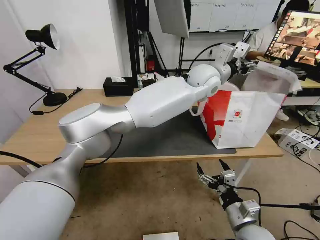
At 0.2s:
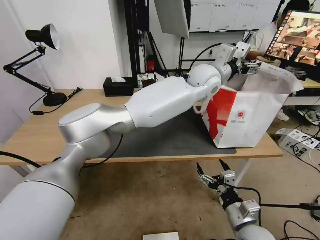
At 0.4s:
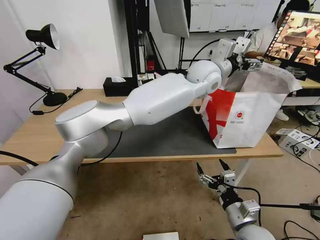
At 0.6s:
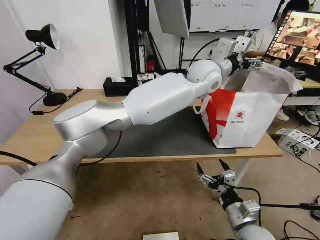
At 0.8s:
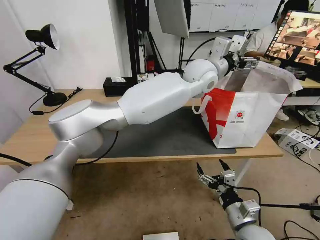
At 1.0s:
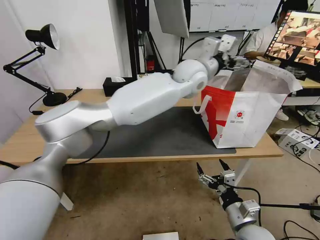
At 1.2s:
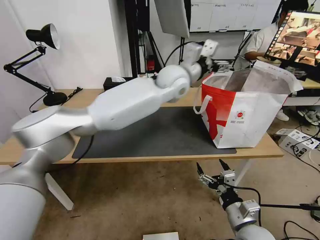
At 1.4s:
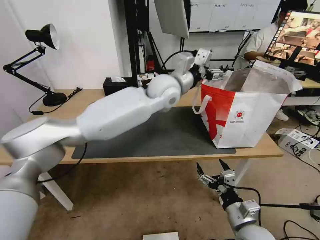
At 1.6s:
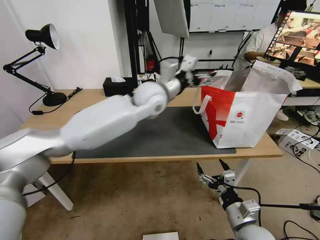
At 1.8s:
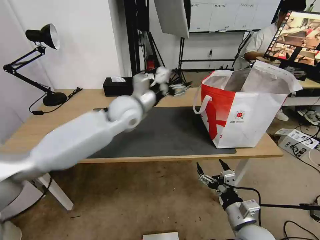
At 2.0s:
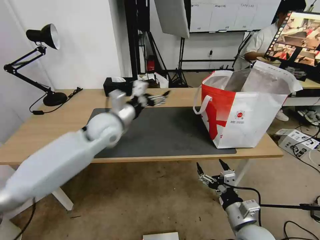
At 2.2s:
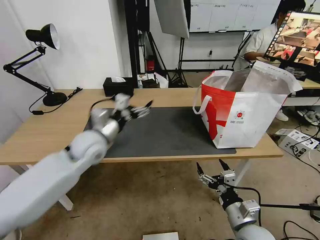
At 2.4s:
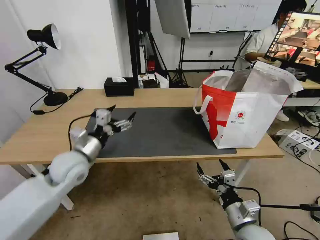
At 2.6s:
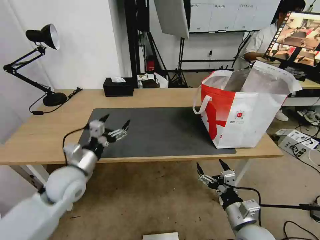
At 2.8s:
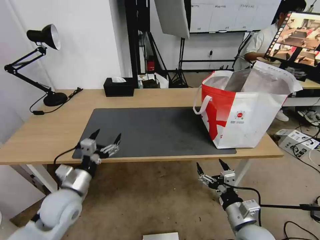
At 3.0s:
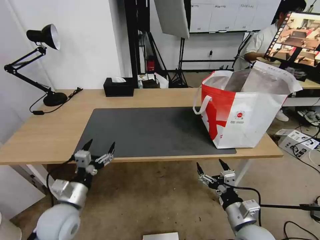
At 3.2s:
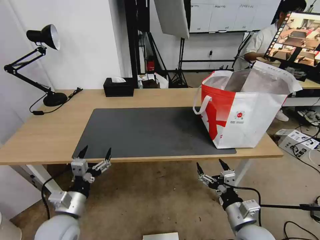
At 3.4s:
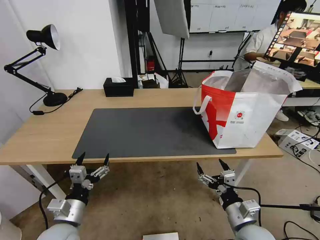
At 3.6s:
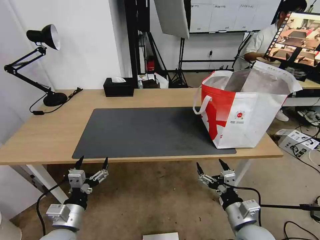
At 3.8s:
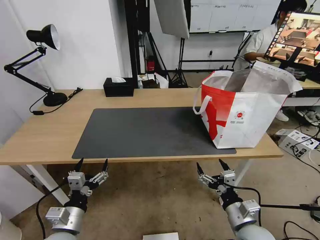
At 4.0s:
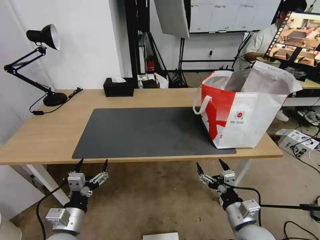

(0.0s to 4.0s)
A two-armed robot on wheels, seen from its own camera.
Task of the whole recording: Pick up the trash from the table and place it into the takeout bag.
0.0s - 1.4s: The left gripper goes about 10 cm to the left, and opens.
1.4s - 2.6s: The left gripper shifts approximately 40 cm to the left, backward and downward.
2.6s - 4.0s: The left gripper moves backward and downward, approximately 15 cm.

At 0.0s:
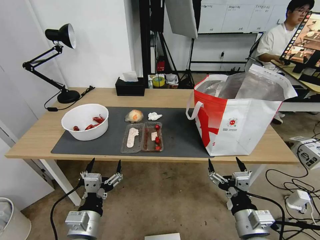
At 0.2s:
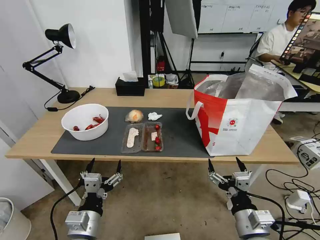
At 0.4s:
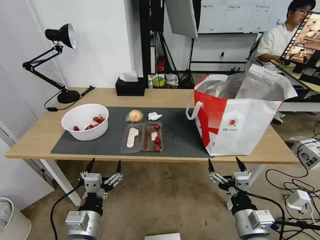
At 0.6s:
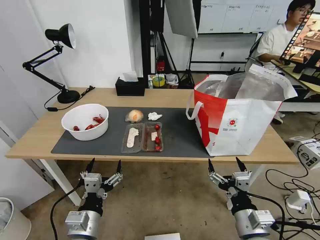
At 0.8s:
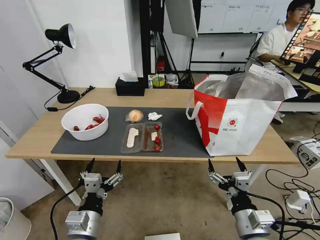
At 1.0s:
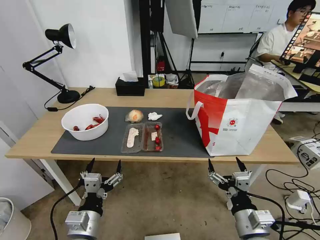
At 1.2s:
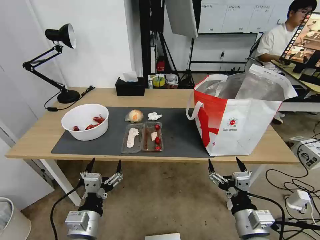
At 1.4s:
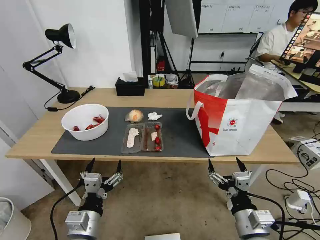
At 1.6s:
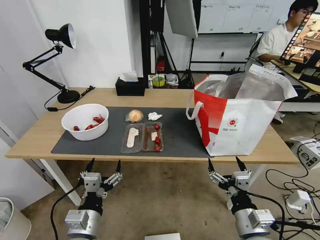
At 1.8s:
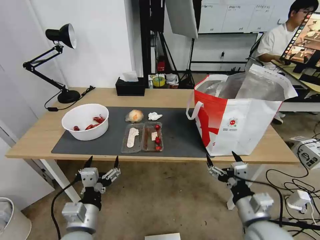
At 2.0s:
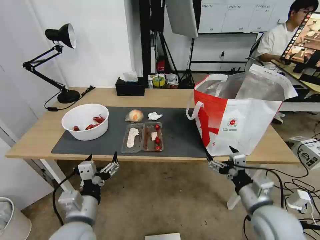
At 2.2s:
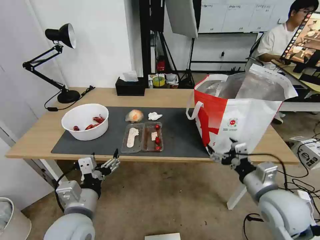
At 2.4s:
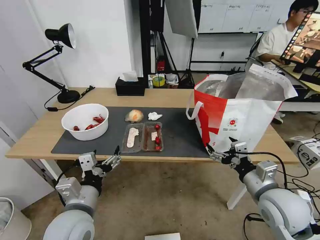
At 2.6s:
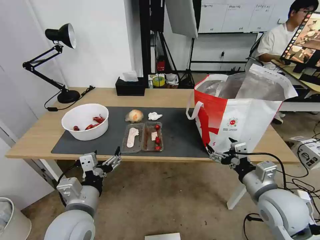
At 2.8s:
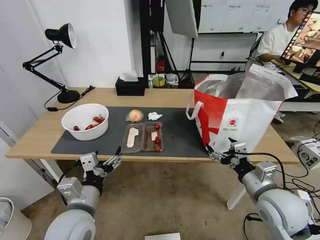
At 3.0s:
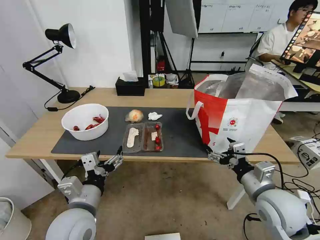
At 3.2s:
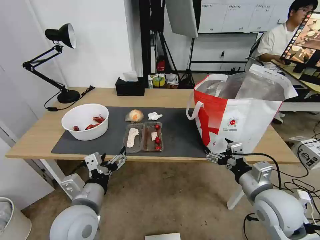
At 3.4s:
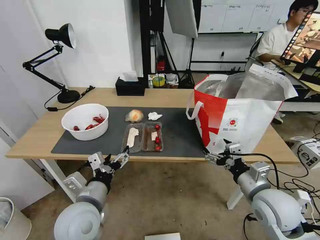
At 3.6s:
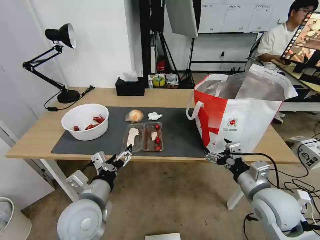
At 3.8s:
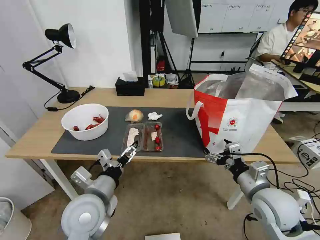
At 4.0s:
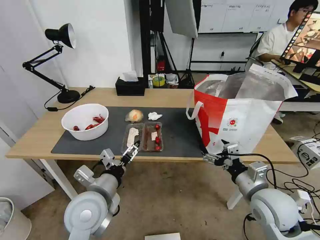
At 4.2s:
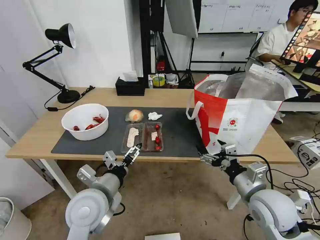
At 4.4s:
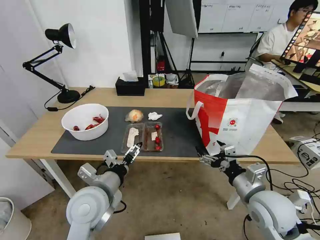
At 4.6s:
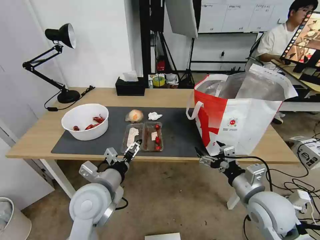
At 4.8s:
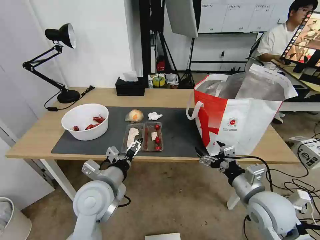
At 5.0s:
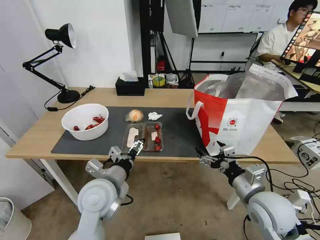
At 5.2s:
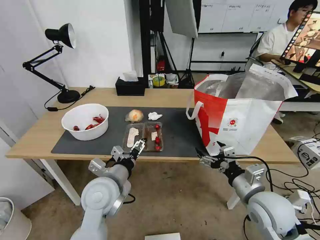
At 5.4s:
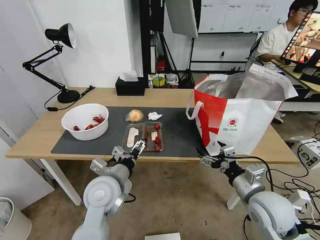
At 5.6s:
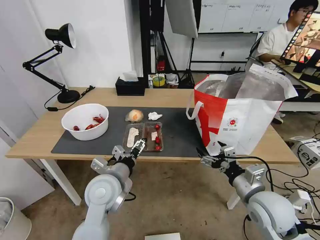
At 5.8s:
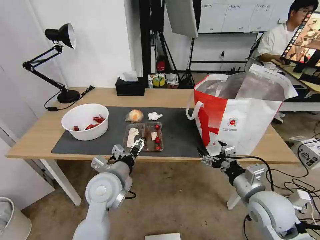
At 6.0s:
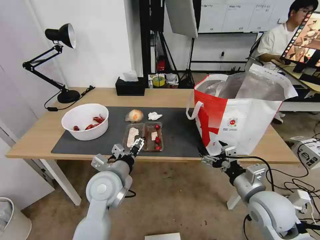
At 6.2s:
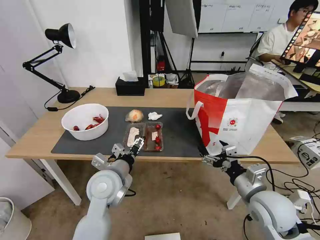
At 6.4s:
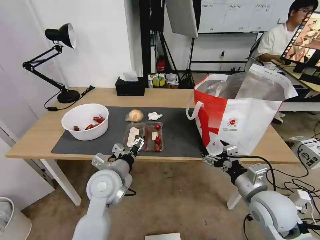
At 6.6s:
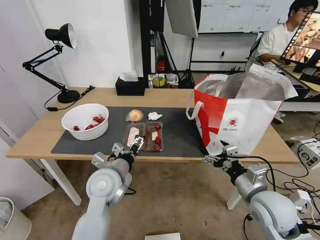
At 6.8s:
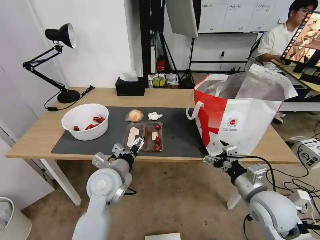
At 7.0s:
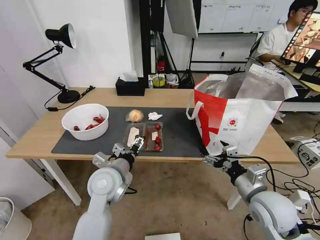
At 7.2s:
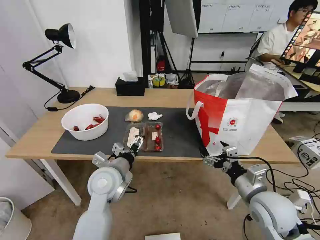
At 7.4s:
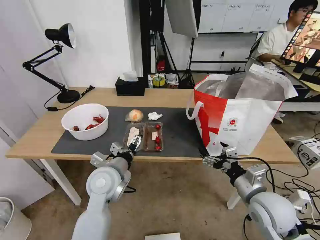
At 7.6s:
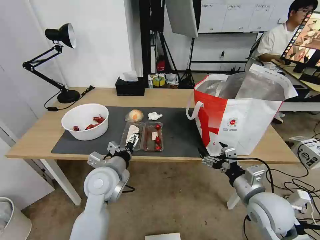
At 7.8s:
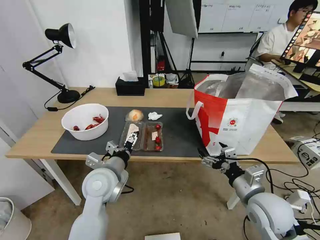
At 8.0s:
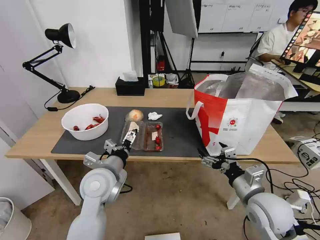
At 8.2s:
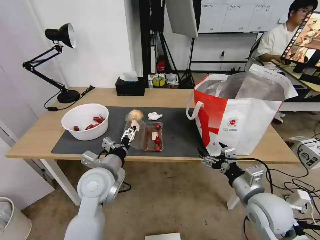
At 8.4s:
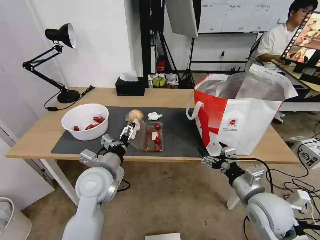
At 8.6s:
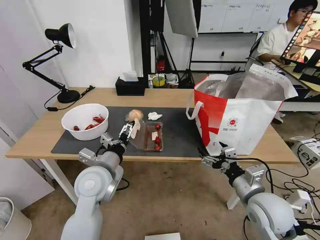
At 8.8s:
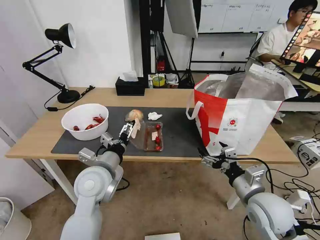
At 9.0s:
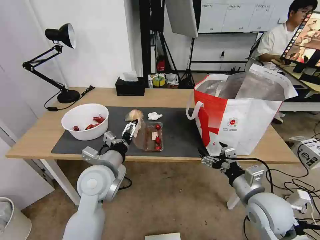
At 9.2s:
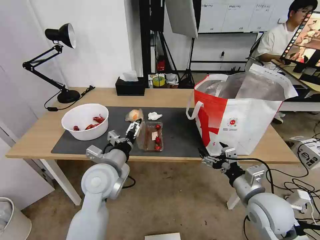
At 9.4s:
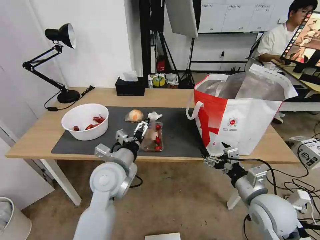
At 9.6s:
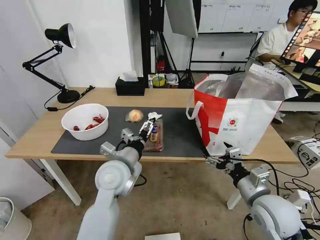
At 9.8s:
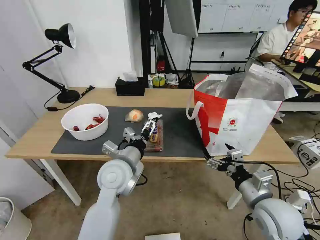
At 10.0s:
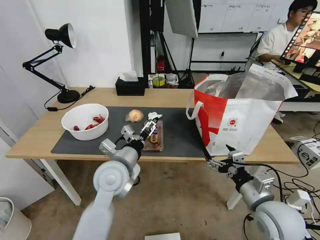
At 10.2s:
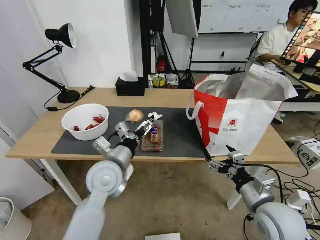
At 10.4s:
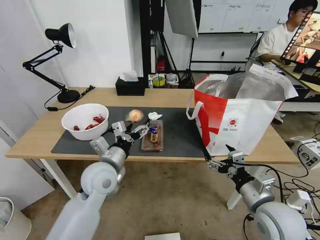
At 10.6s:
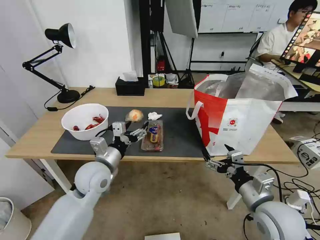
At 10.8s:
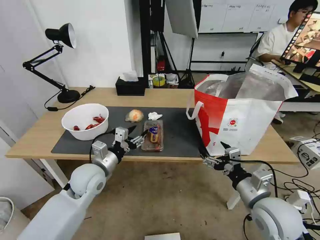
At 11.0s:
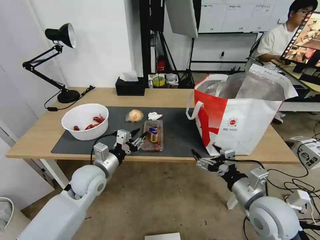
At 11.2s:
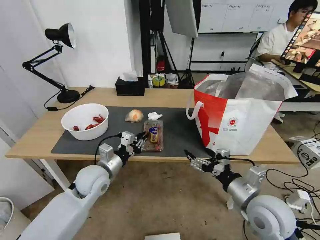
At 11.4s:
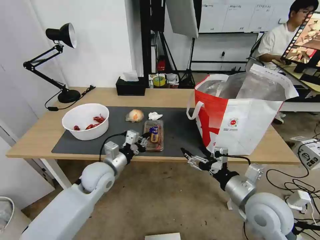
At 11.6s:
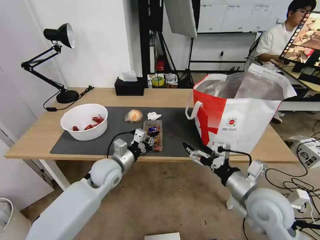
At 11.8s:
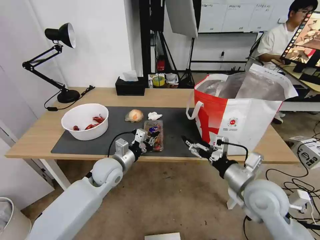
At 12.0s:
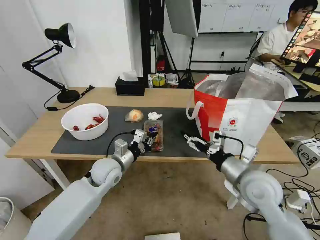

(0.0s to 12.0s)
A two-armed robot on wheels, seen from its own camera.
Task of the whole recording: Pick up the trash from the table and place it into the takeout bag.
1.6s - 3.0s: The right gripper moves forward, upward and to the right, about 10 cm. Meanwhile the left gripper shifts some 5 cm upward.
3.0s - 4.4s: The left gripper goes approximately 5 cm forward.
4.4s - 6.0s: The left gripper shifts some 5 cm forward.
6.0s - 9.0s: The grippers stay close to where they were, moving slightly.
10.4s - 12.0s: The right gripper moves forward, approximately 5 cm. Meanwhile the left gripper moves downward and forward, some 10 cm, and closes up.

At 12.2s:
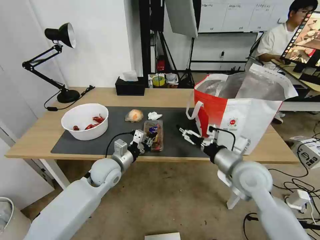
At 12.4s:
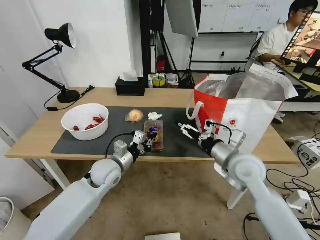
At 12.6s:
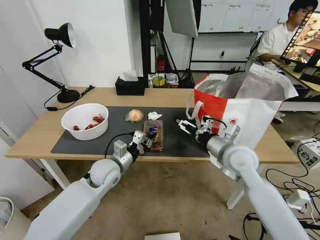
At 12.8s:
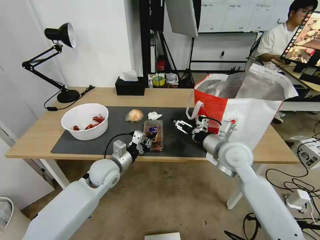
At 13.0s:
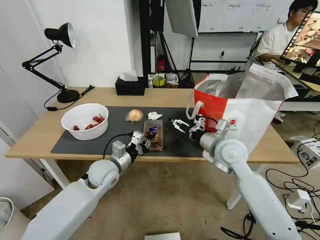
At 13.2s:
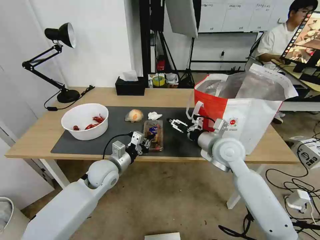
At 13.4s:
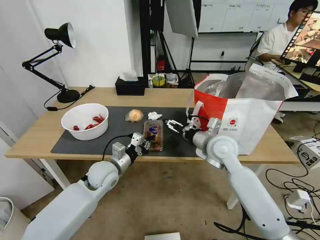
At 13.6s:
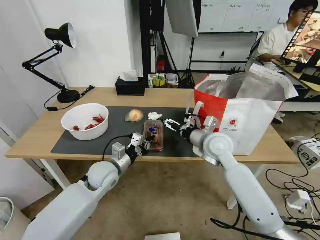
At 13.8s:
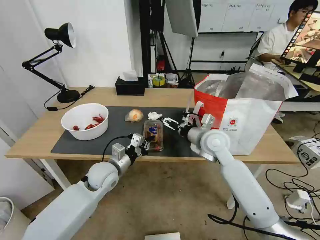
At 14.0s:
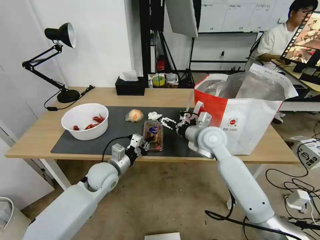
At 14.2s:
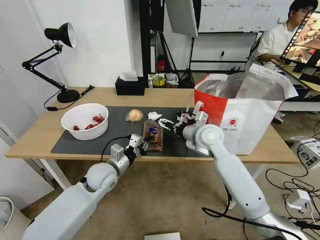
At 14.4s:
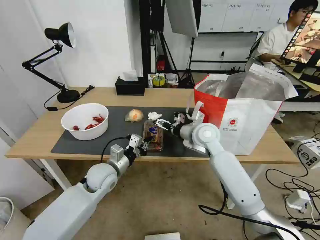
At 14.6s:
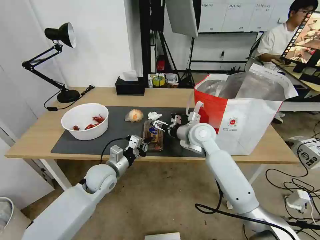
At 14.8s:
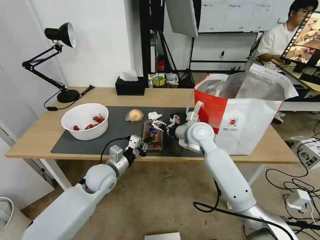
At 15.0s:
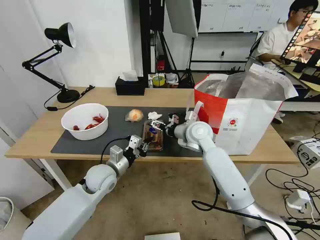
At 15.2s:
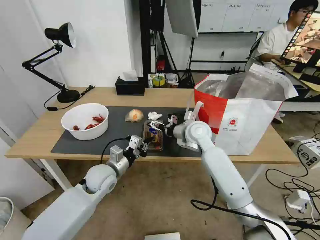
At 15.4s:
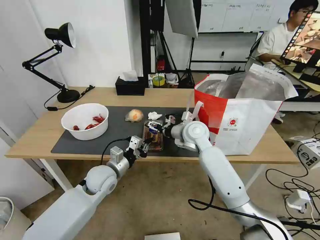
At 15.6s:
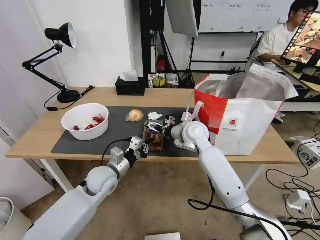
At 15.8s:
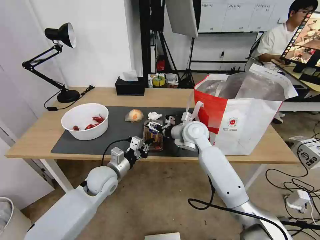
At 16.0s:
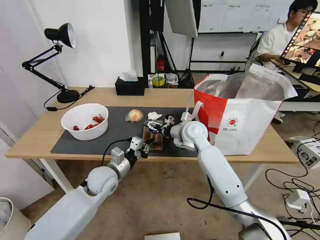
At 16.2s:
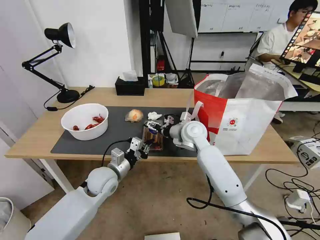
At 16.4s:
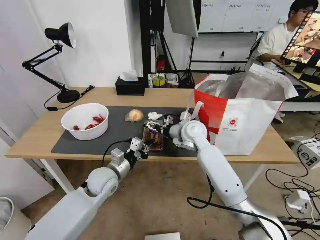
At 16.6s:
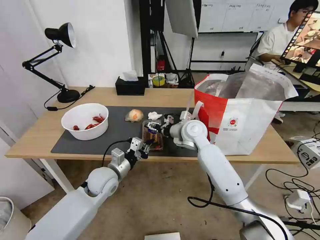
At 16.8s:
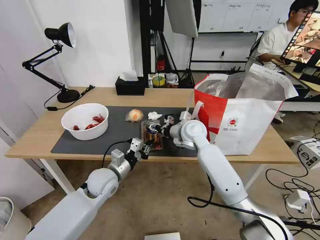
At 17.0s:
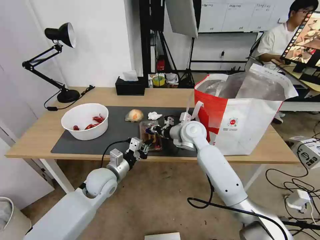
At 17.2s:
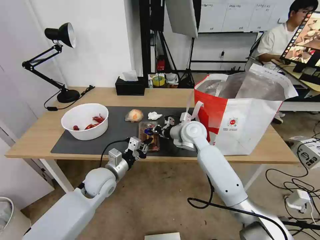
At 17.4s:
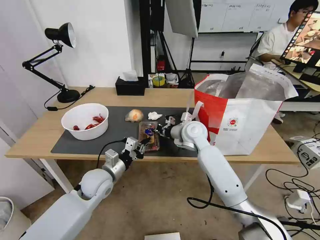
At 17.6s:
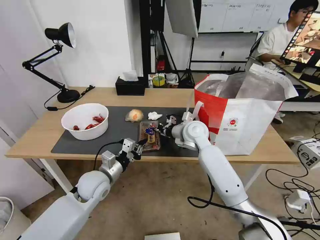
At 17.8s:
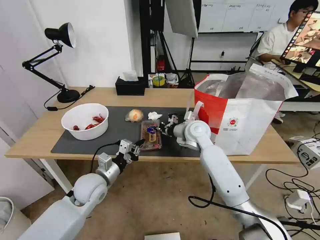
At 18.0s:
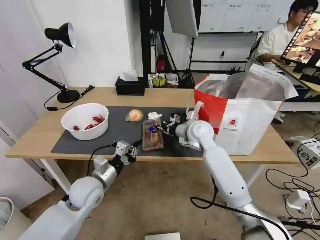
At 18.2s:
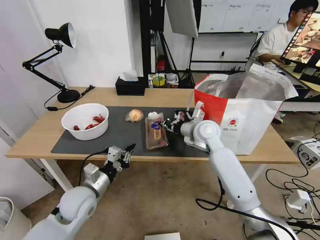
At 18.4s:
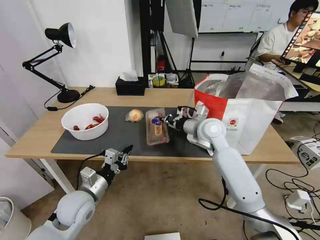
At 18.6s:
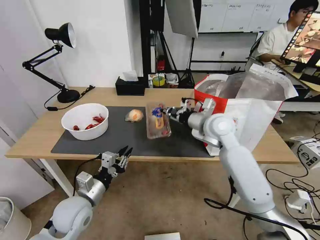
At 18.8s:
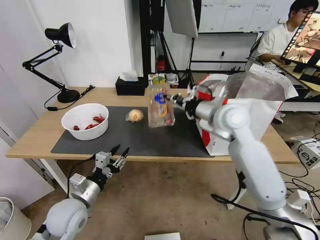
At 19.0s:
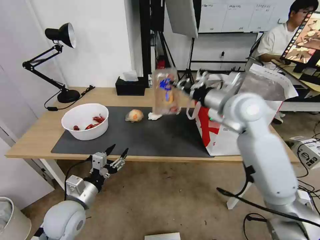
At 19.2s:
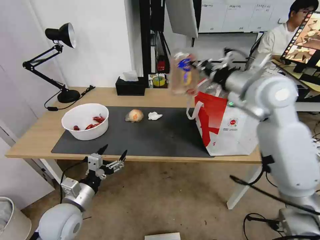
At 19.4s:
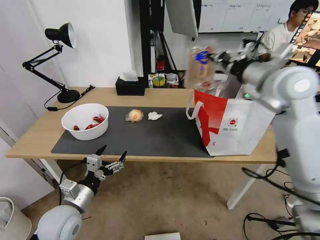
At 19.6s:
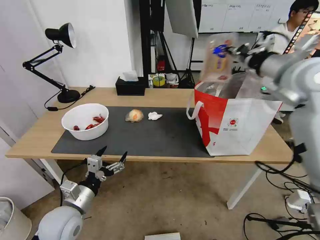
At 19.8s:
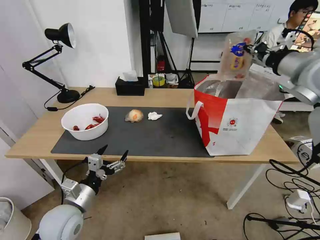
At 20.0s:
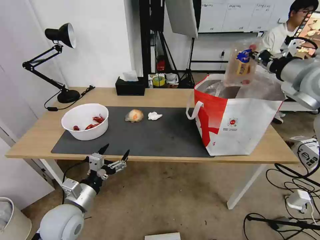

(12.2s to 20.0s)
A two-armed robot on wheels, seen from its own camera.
Task of the whole recording: Pick up the trash from the table and place it into the takeout bag.
12.2s - 13.8s: The right gripper moves forward and to the left, some 15 cm.
13.8s - 15.4s: The right gripper heads forward and to the left, covering some 5 cm.
15.4s - 16.8s: The right gripper closes its fingers.
16.8s - 18.4s: The right gripper shifts some 5 cm to the right, and closes its fingers; the left gripper shifts about 10 cm backward and to the left.
18.4s - 20.0s: The right gripper heads to the right and upward, covering roughly 30 cm. The left gripper opens its fingers.
